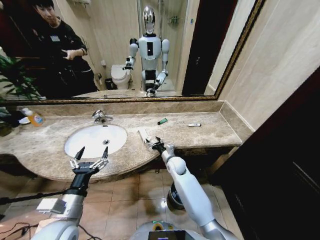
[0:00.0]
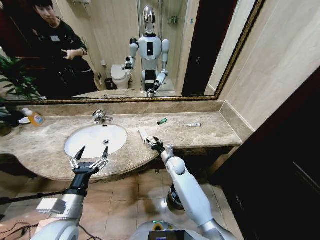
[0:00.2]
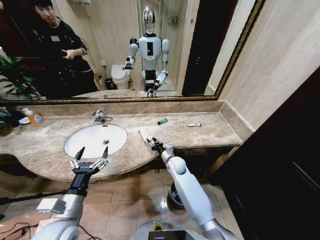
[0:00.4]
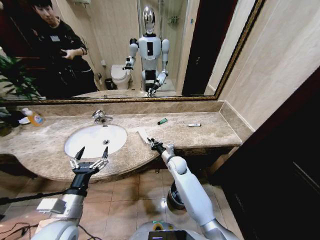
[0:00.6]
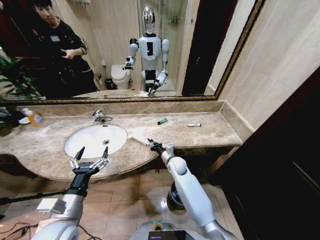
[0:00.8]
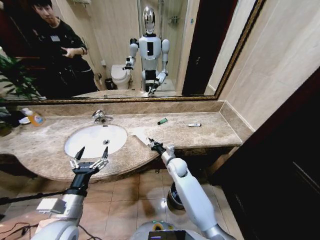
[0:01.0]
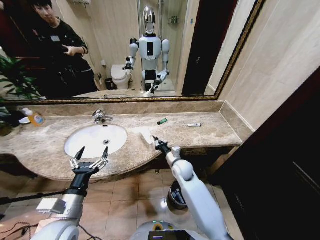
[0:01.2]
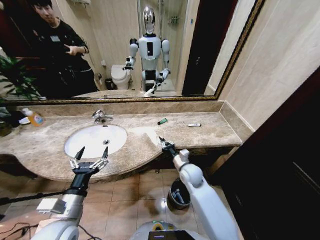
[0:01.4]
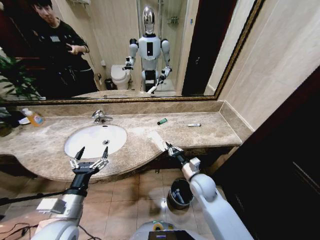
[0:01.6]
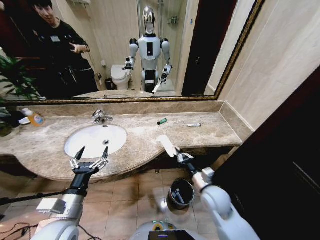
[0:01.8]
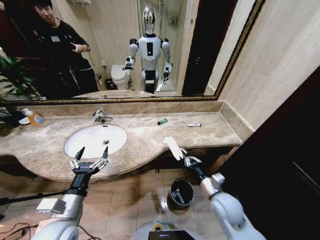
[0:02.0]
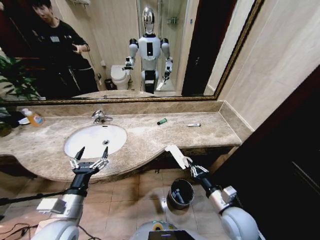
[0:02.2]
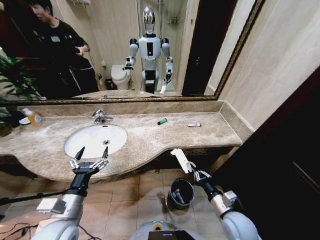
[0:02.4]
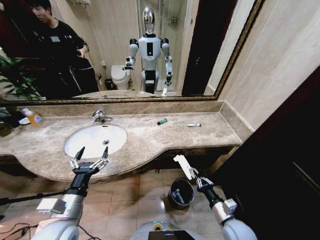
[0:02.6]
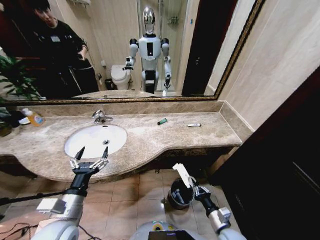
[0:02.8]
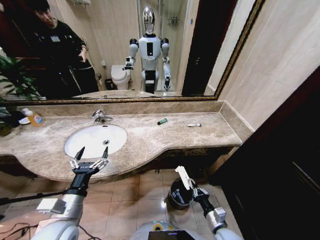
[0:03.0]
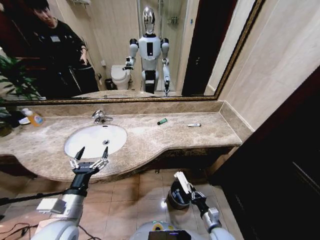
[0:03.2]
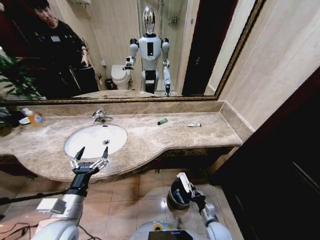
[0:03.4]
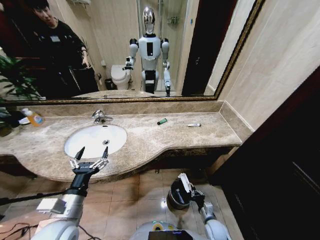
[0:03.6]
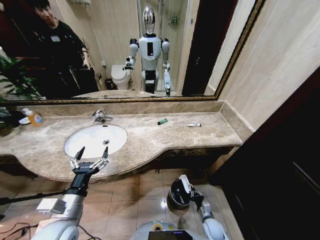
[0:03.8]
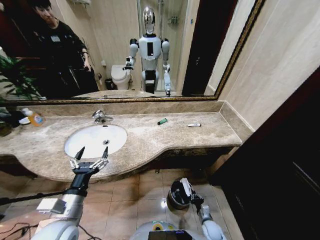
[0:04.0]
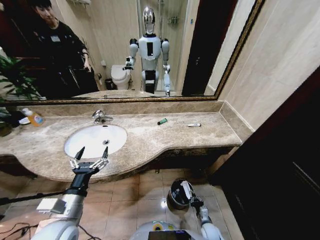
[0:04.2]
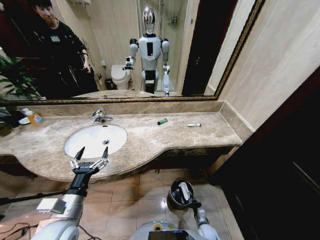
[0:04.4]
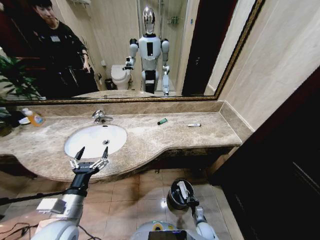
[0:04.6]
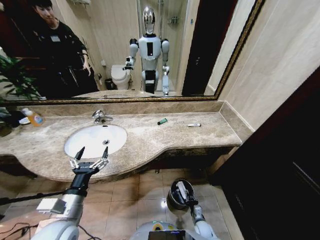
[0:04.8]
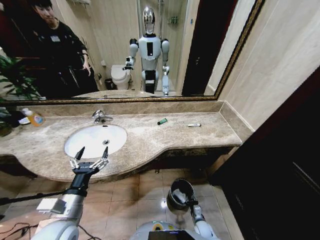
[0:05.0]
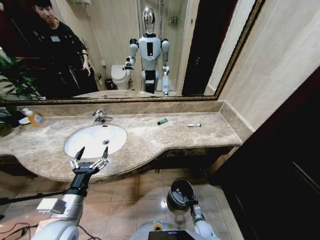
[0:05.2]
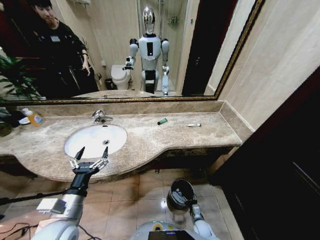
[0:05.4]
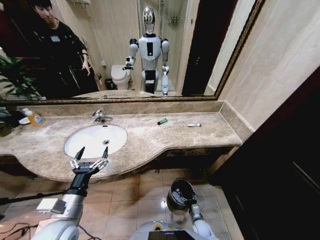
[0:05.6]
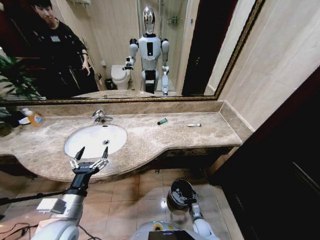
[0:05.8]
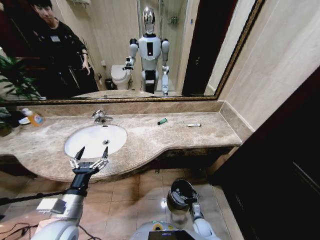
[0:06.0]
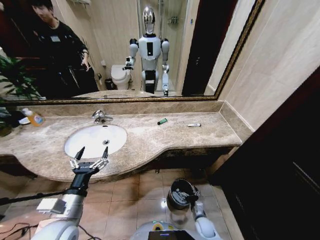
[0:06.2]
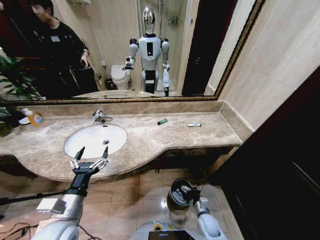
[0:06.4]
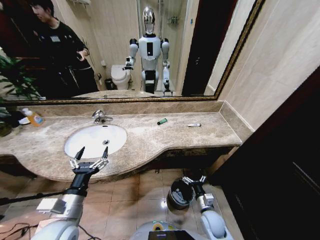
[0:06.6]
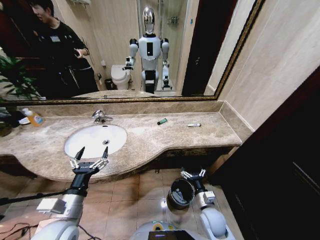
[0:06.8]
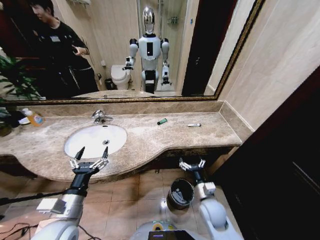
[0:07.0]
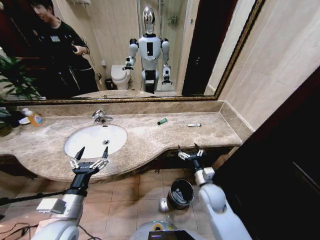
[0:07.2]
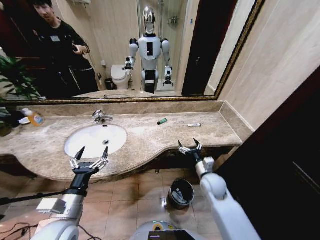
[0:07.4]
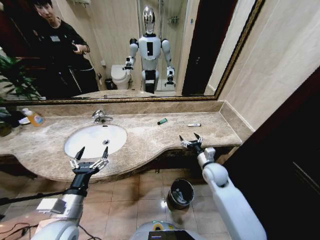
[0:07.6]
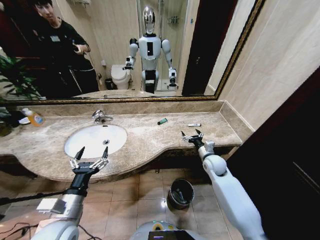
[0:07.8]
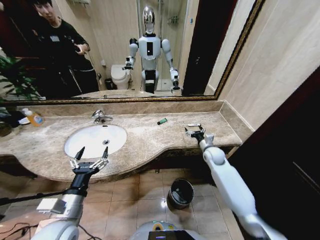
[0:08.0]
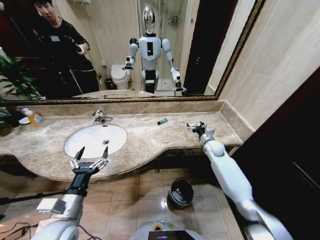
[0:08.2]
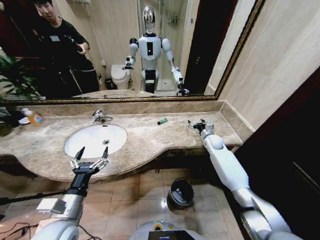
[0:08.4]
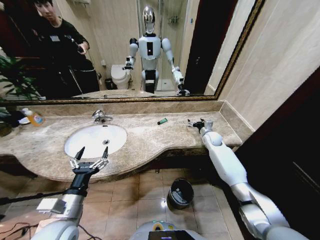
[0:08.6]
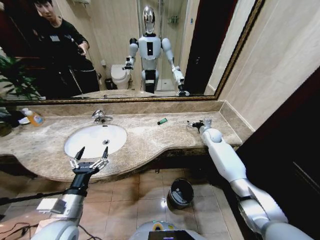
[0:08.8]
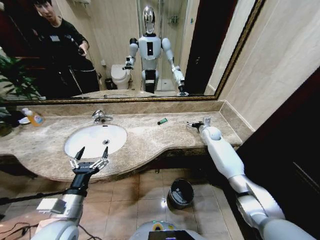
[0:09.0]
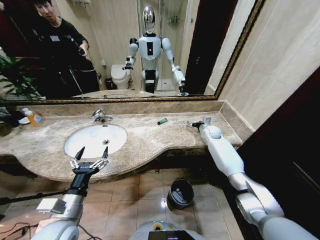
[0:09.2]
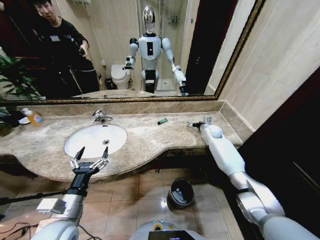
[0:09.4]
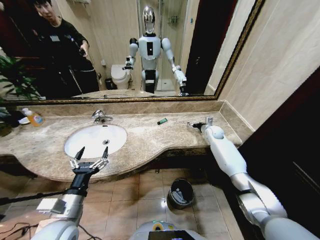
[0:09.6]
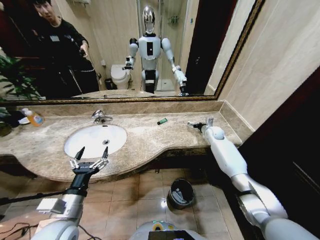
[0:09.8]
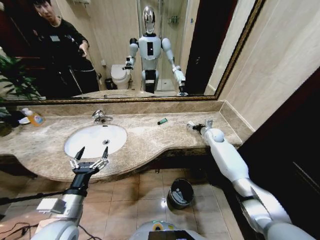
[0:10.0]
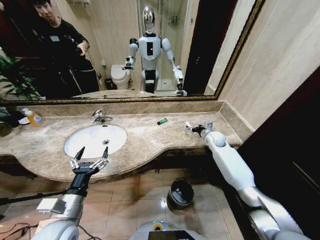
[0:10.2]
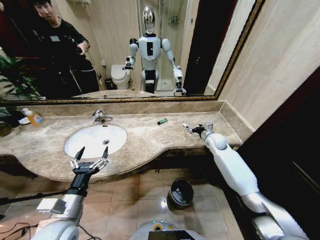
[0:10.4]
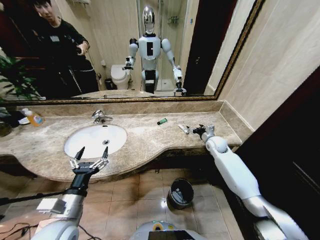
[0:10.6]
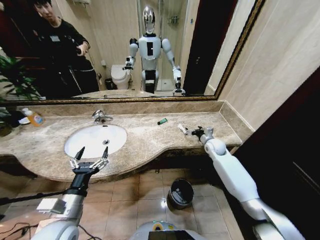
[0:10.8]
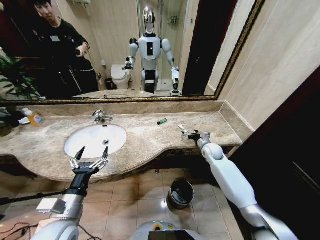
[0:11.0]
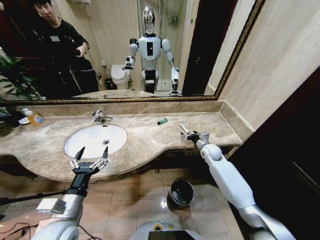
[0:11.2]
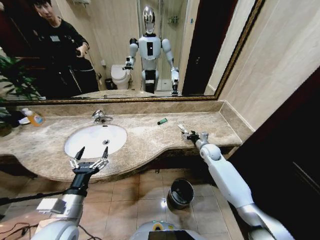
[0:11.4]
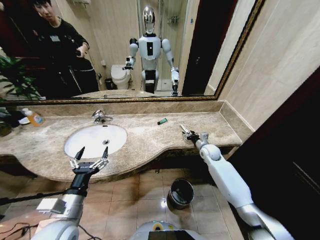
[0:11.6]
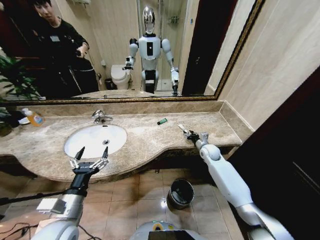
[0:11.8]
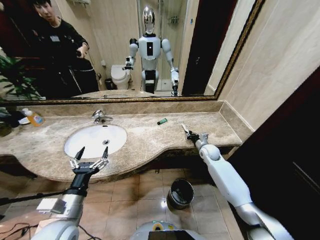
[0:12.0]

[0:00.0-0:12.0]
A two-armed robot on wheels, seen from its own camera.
Task of the whole recording: Pick up the trash from the sink and place it in the trash bin.
0:00.0 to 0:01.6: The right gripper travels backward and to the right by about 15 cm, and closes.
0:01.6 to 0:03.0: The right gripper heads backward, downward and to the right, covering about 20 cm.
0:03.0 to 0:04.4: The right gripper is displaced downward by approximately 20 cm.
0:04.4 to 0:06.0: The right gripper opens up.
0:06.0 to 0:07.6: The right gripper travels upward and forward by roughly 35 cm.
0:07.6 to 0:09.0: The right gripper moves forward, roughly 20 cm.
0:09.0 to 0:10.4: The right gripper goes about 5 cm backward.
0:10.4 to 0:12.0: The right gripper moves downward, roughly 5 cm, and closes up.

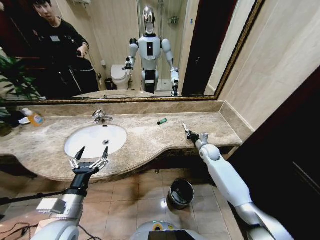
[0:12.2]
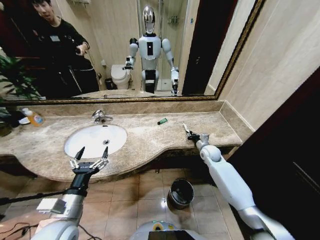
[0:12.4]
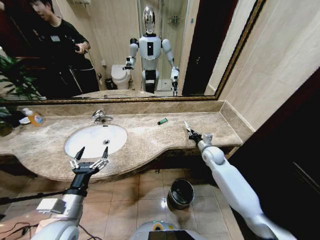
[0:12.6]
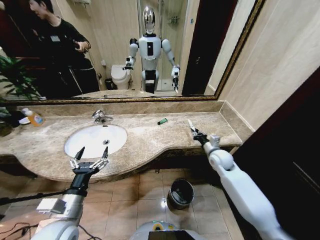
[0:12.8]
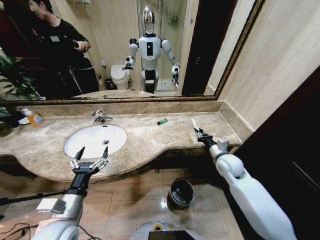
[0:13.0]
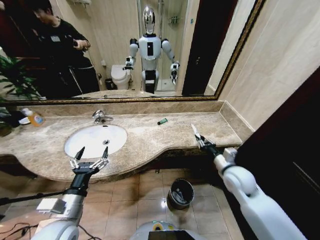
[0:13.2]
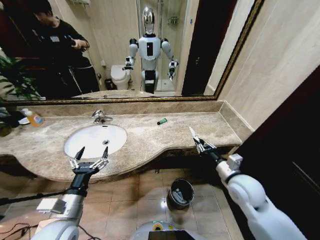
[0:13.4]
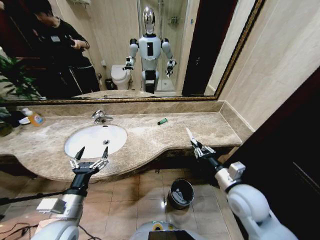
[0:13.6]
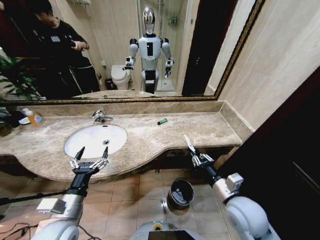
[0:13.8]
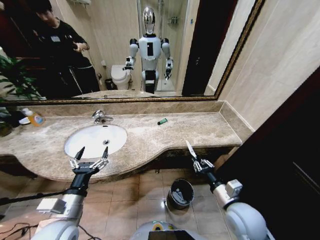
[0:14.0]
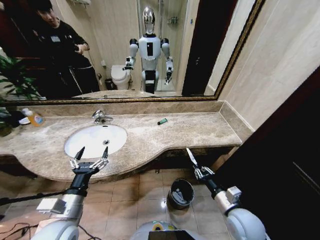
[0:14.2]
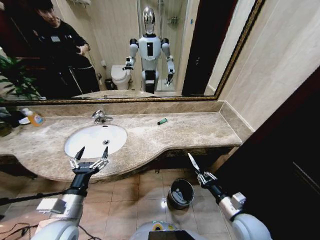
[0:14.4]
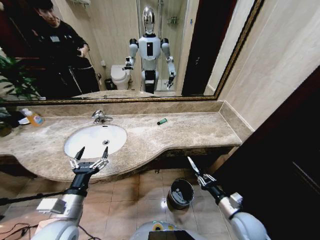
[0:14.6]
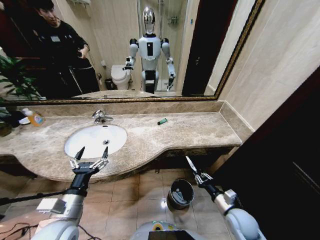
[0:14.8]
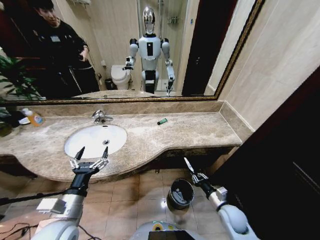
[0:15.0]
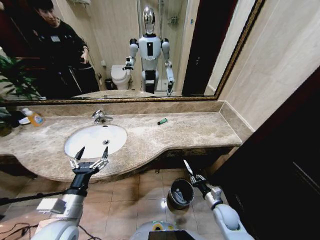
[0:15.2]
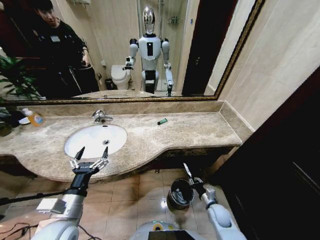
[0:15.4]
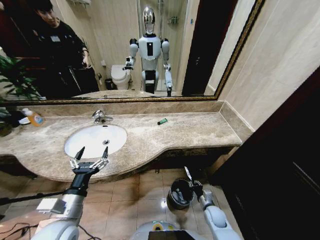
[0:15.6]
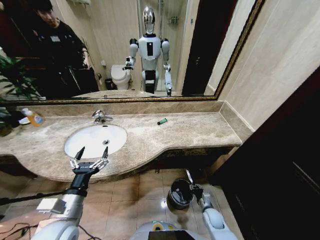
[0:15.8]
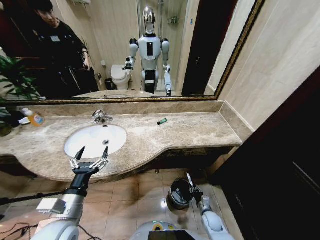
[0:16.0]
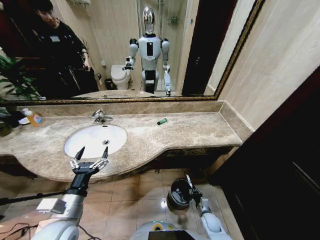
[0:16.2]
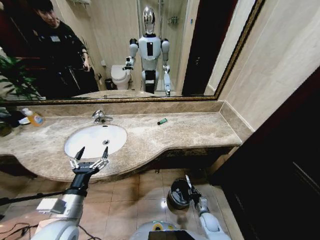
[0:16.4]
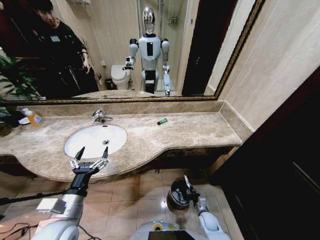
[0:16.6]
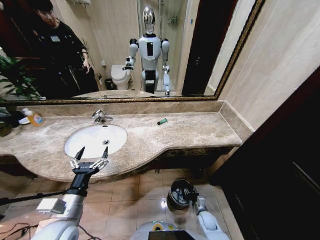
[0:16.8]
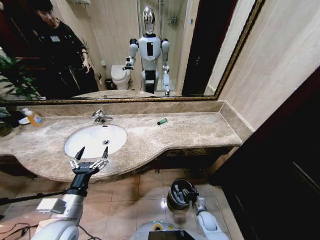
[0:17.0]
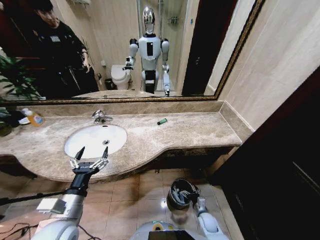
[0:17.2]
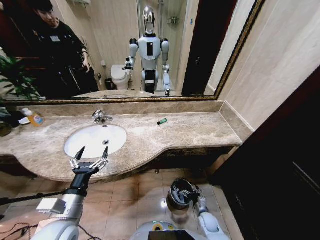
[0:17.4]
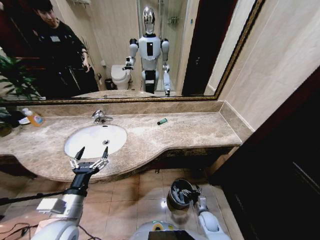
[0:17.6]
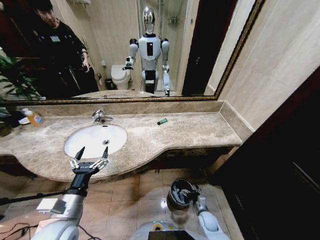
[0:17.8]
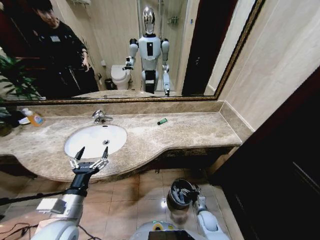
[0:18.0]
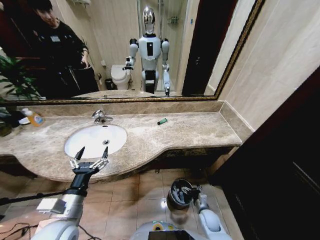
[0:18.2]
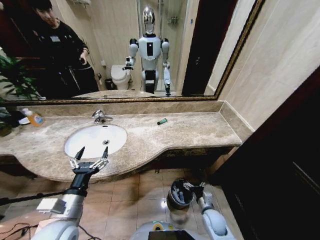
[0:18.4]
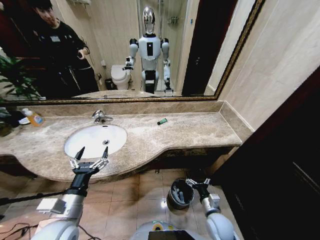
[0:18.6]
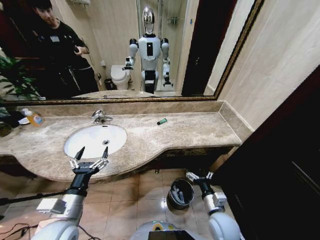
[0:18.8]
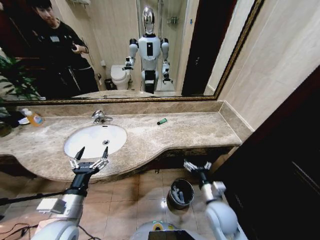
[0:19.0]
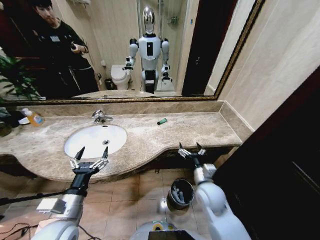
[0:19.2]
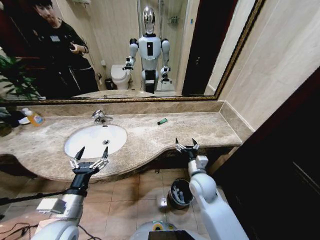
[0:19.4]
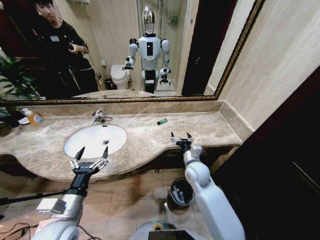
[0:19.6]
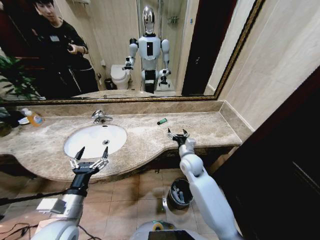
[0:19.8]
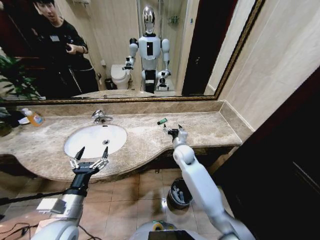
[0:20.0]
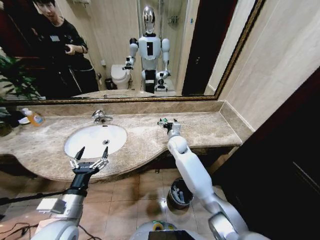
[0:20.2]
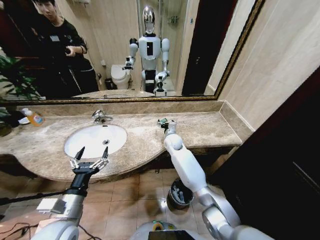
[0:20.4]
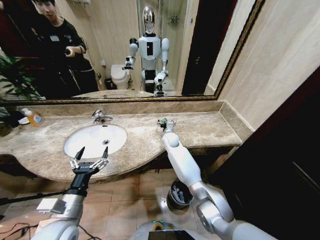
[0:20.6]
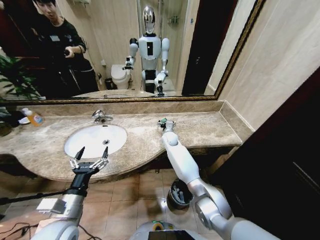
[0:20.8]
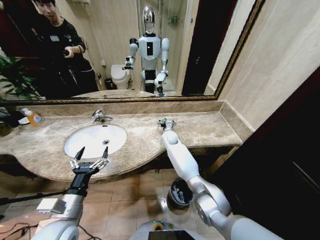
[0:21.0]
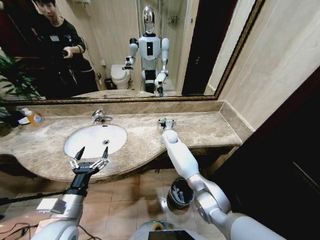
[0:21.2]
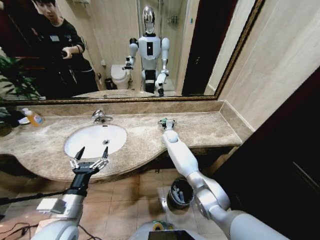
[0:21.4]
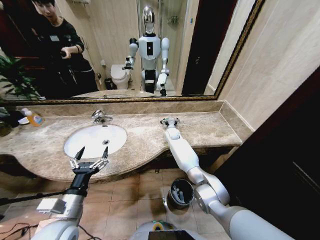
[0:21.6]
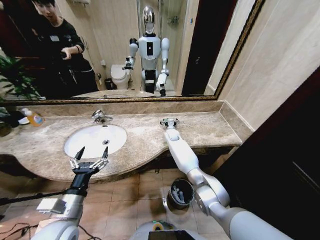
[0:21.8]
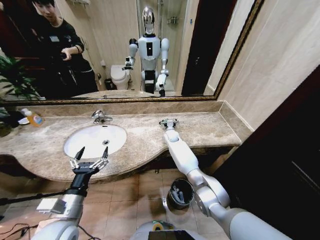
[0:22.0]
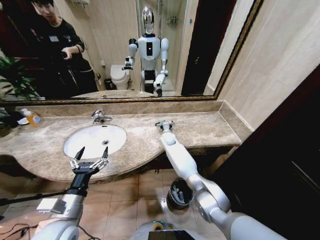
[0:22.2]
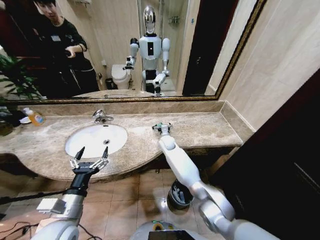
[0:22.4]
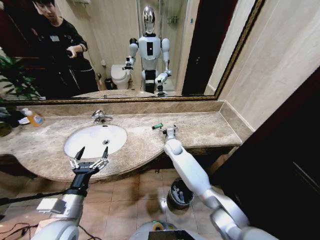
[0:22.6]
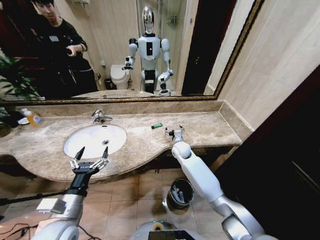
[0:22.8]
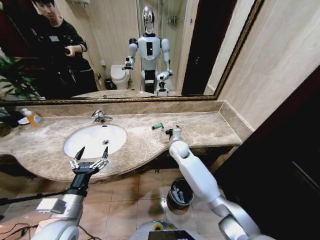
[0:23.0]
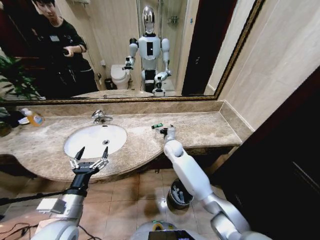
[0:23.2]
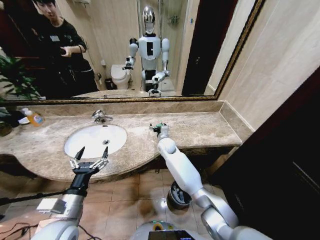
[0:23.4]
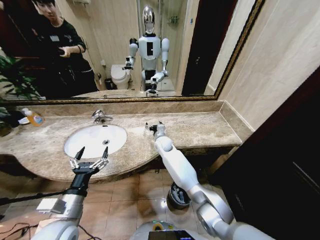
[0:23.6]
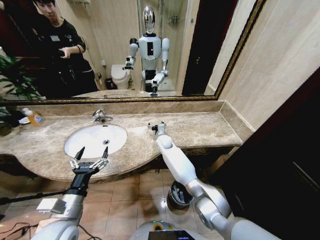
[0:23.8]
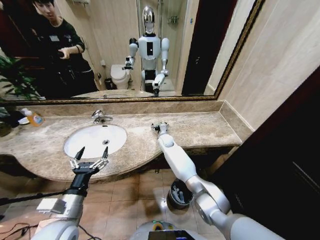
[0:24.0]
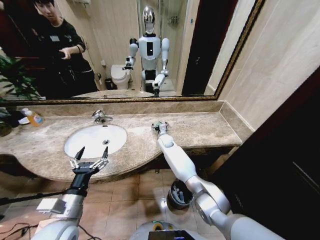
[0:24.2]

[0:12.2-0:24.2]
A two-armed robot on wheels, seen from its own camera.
Task of the whole recording: Pick up the trash from the sink and place it in the trash bin.
0:12.2 to 0:13.8: The right gripper is displaced backward by approximately 30 cm.
0:13.8 to 0:15.2: The right gripper shifts approximately 20 cm downward.
0:15.2 to 0:16.6: The right gripper is displaced downward by about 15 cm.
0:16.6 to 0:18.2: The right gripper opens up.
0:18.2 to 0:19.8: The right gripper is displaced upward, forward and to the left by about 35 cm.
0:19.8 to 0:21.2: The right gripper goes approximately 20 cm forward.
0:21.2 to 0:22.6: The right gripper travels backward by roughly 5 cm.
0:22.6 to 0:24.2: The right gripper goes some 5 cm forward.
